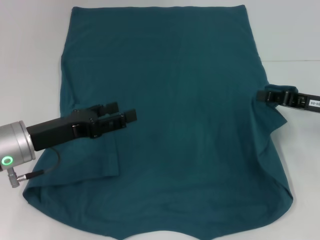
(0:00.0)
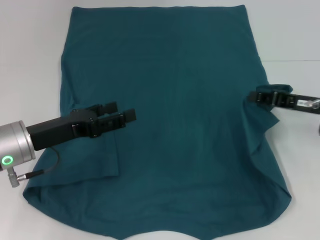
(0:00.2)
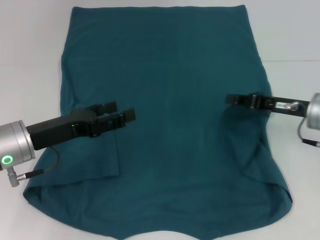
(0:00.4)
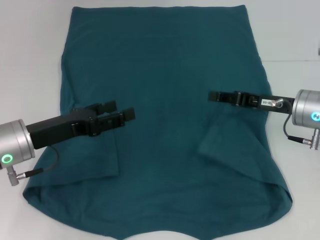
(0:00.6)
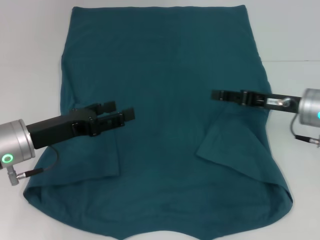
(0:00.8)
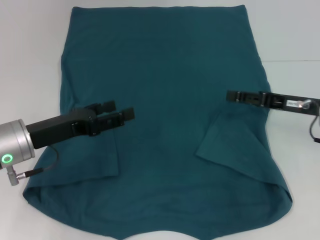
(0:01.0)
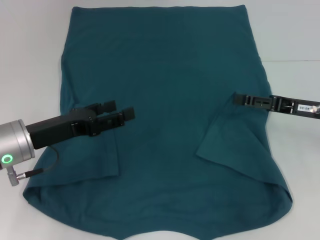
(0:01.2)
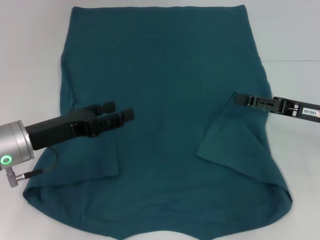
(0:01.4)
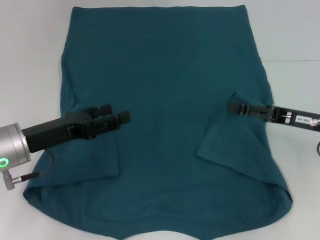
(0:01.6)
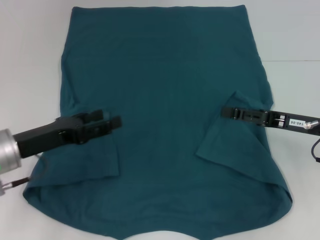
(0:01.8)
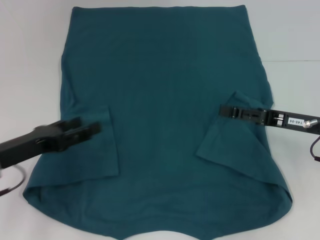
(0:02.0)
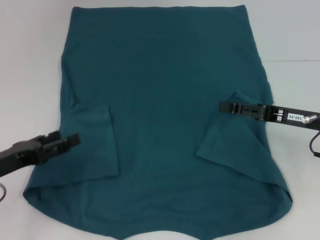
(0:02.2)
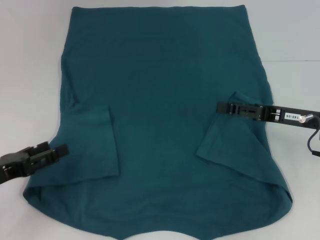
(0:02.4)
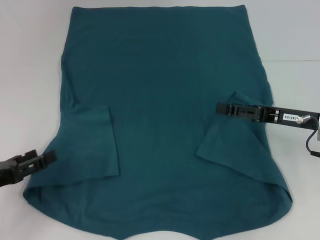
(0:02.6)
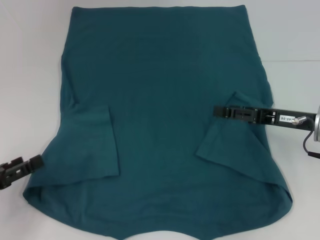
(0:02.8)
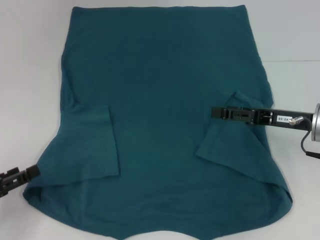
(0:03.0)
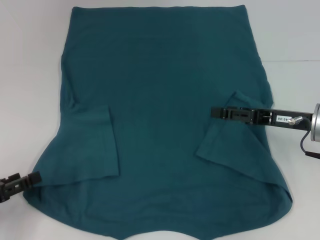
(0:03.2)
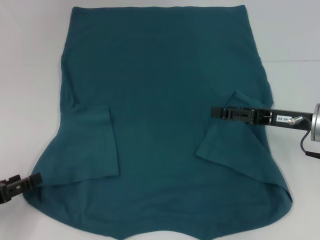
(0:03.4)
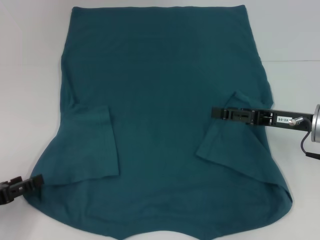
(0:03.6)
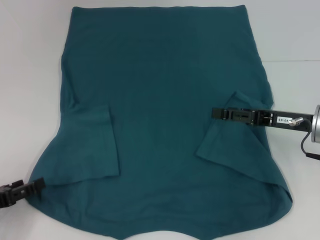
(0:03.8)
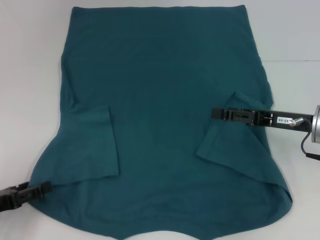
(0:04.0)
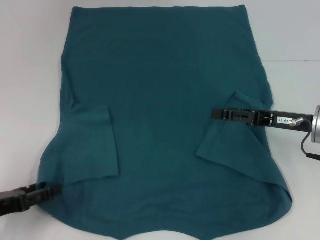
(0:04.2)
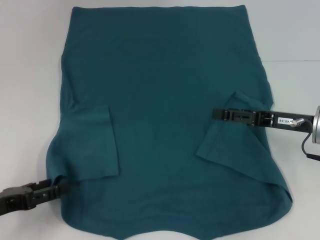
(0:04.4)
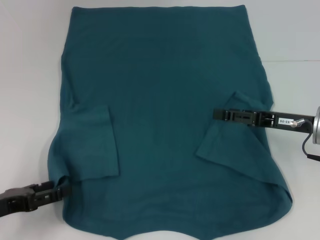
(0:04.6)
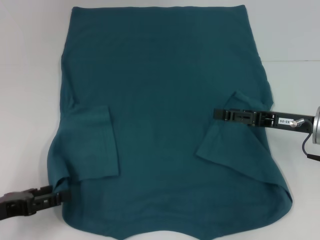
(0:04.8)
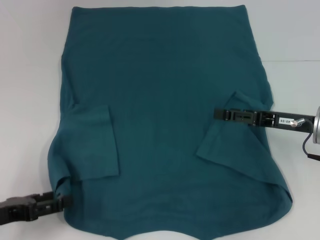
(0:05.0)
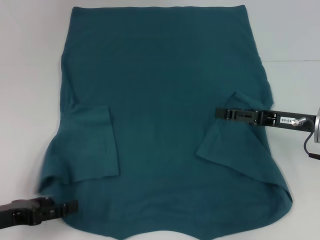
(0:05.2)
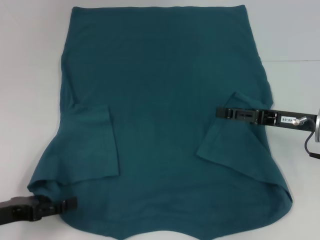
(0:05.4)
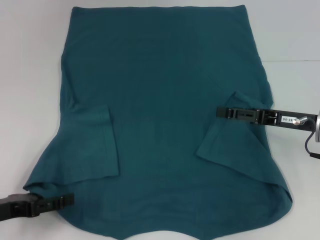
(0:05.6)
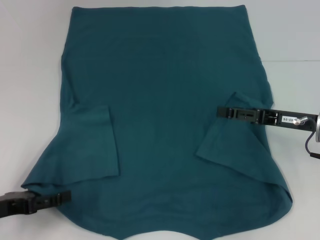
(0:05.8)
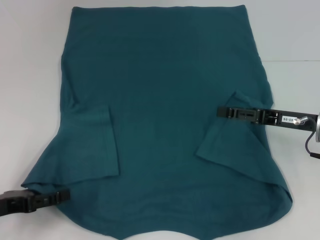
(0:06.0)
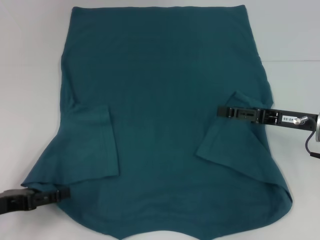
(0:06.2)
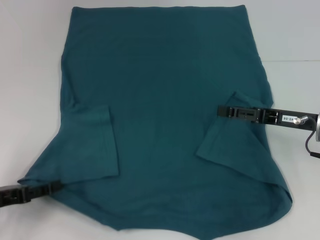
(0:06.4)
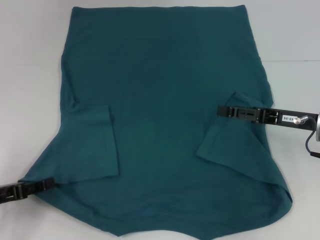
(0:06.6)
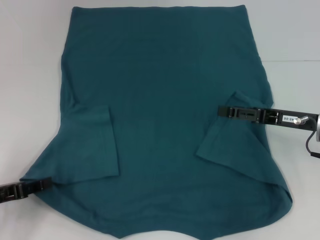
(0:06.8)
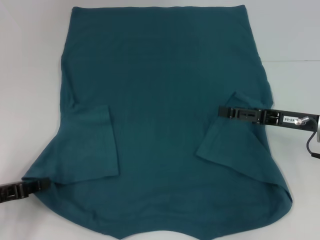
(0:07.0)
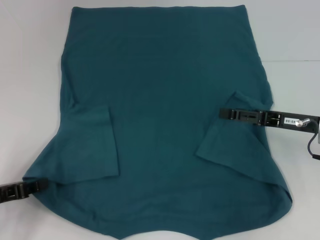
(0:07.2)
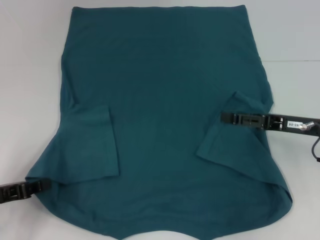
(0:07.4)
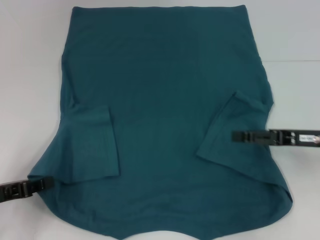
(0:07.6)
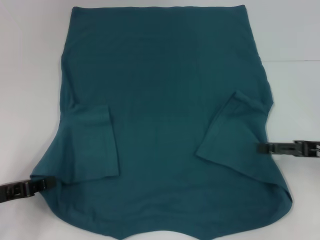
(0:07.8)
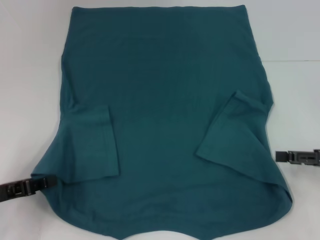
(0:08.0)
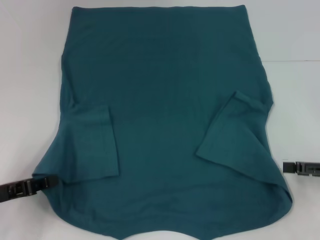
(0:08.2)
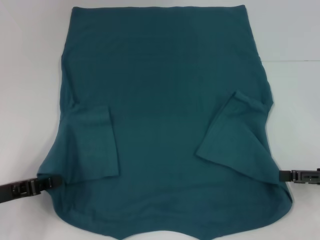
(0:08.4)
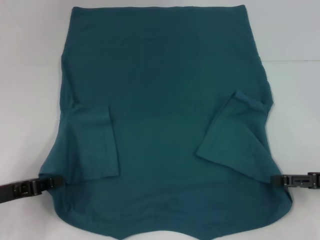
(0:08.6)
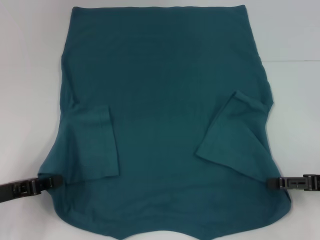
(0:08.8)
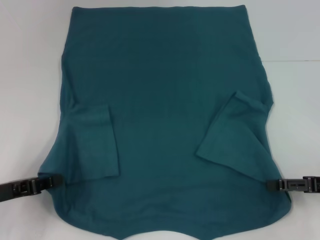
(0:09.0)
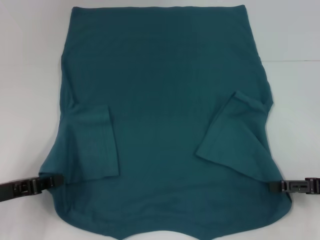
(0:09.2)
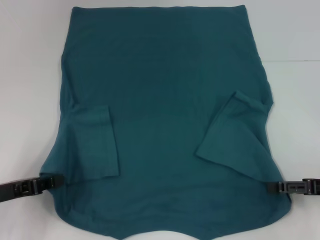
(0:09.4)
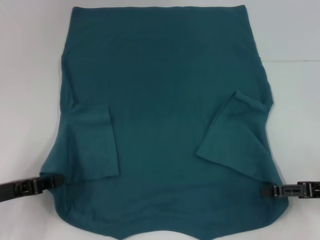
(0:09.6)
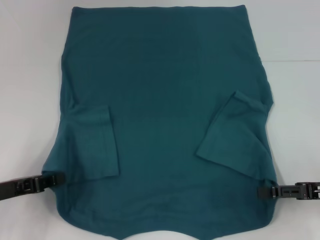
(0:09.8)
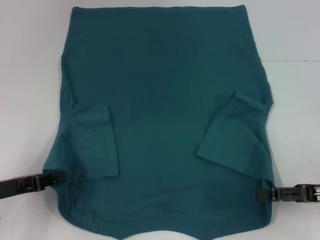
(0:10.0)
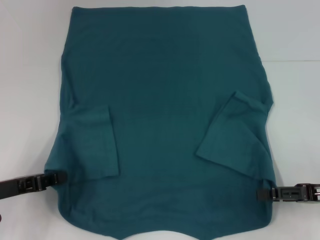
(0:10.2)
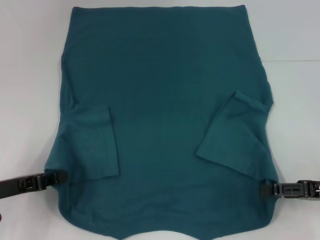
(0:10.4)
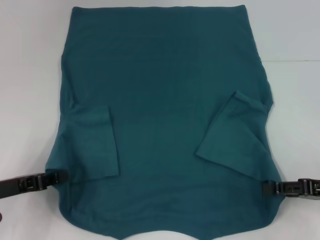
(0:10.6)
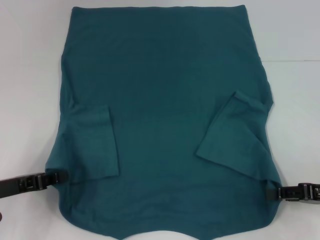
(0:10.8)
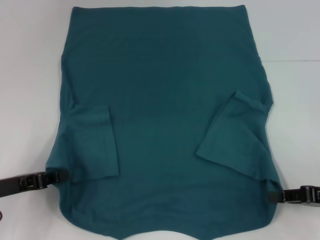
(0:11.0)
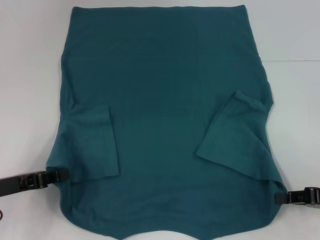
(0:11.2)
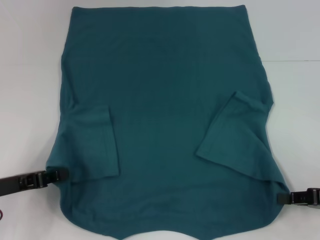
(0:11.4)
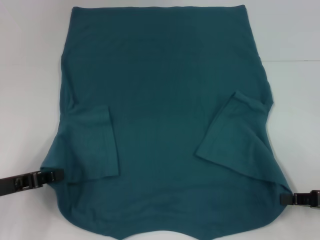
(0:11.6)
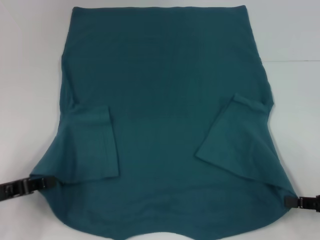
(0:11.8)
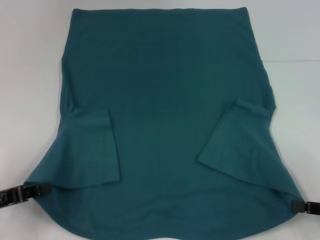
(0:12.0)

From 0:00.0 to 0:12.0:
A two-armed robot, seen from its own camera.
Step, from 0:01.4 to 0:07.4: Grab the bottom left corner with your left hand.
Step, from 0:07.6 to 0:11.0: Grab the bottom right corner with your right hand.
From 0:00.0 to 0:01.6: The right gripper opens.
From 0:01.6 to 0:03.0: The left gripper moves to the left and backward, about 15 cm.
From 0:03.0 to 0:06.0: The grippers stay close to where they were, moving slightly.
From 0:06.0 to 0:07.6: The left gripper closes.
From 0:07.6 to 0:09.0: The right gripper travels backward by approximately 5 cm.
From 0:09.0 to 0:10.4: The grippers make only small movements.
From 0:10.4 to 0:12.0: The right gripper shifts by about 5 cm, and closes its fingers.

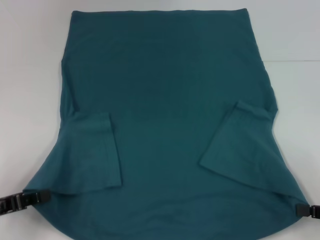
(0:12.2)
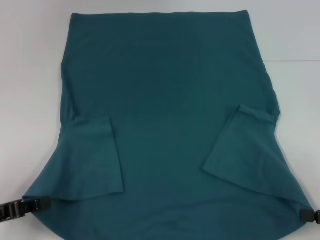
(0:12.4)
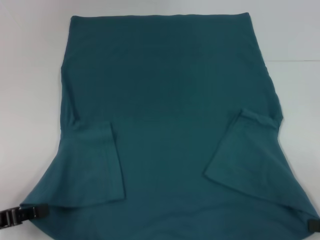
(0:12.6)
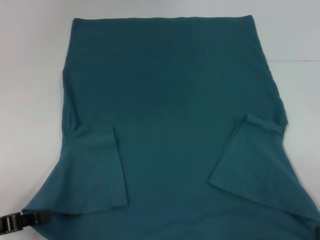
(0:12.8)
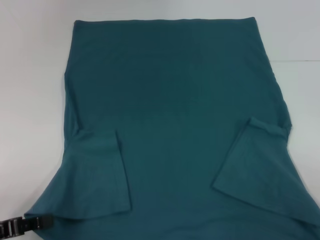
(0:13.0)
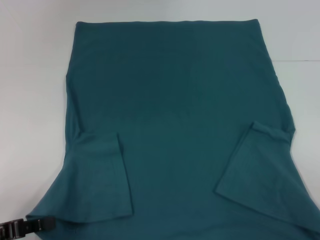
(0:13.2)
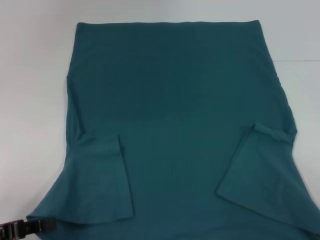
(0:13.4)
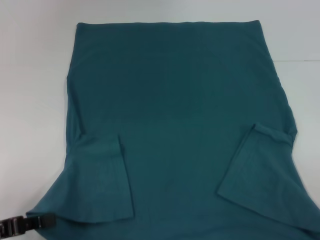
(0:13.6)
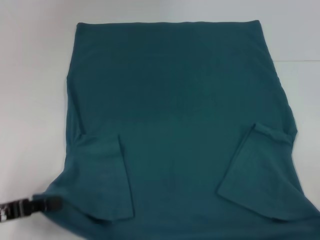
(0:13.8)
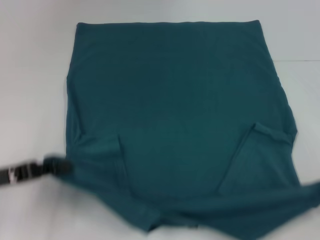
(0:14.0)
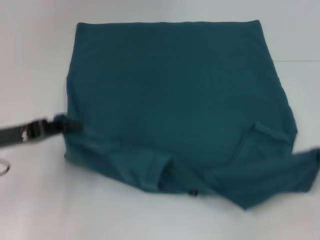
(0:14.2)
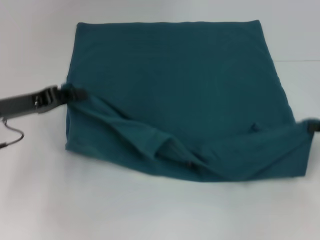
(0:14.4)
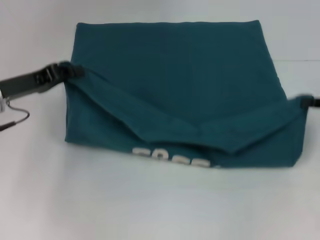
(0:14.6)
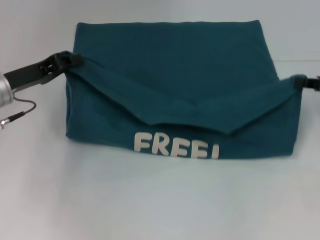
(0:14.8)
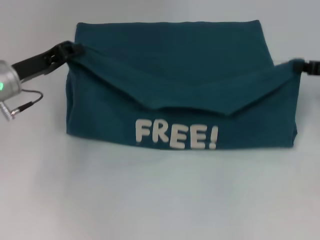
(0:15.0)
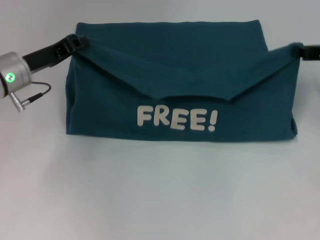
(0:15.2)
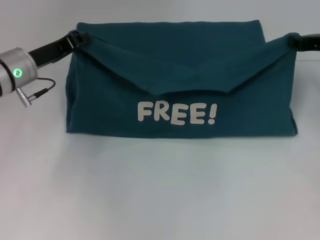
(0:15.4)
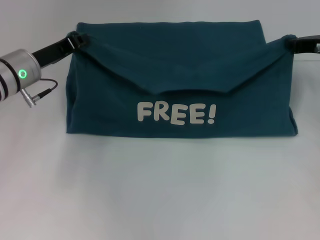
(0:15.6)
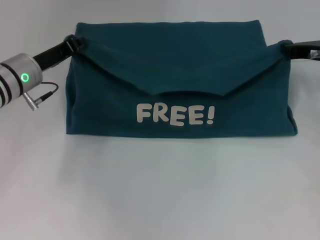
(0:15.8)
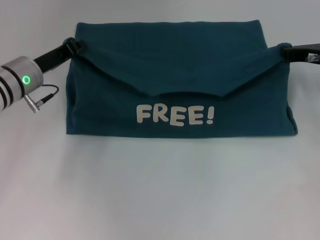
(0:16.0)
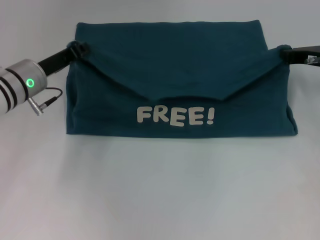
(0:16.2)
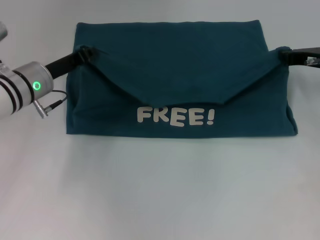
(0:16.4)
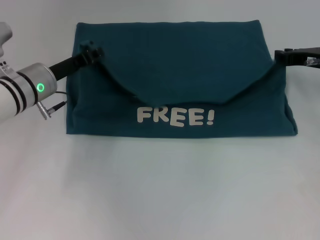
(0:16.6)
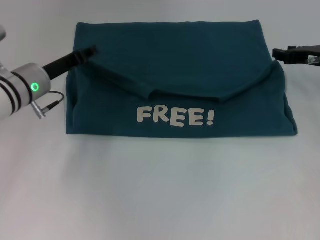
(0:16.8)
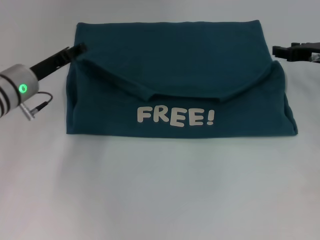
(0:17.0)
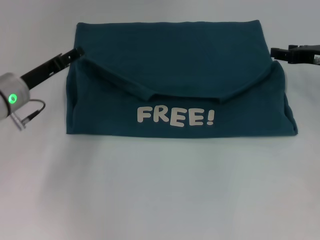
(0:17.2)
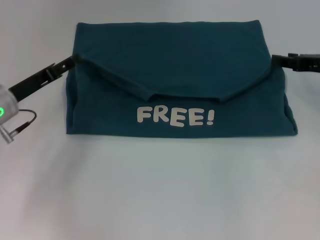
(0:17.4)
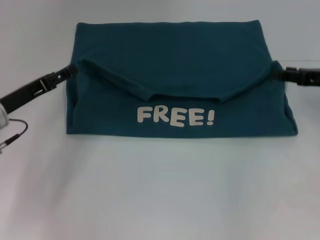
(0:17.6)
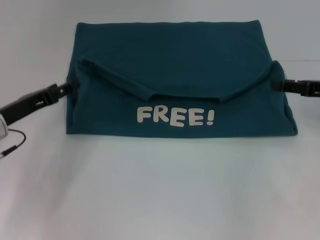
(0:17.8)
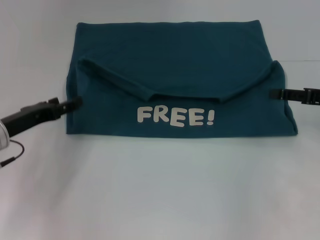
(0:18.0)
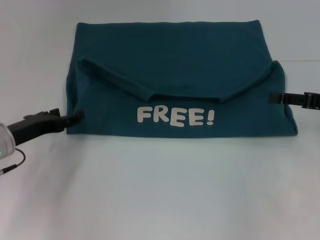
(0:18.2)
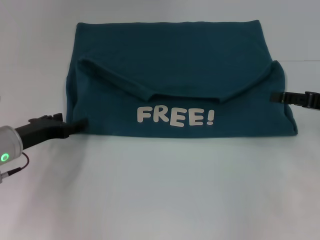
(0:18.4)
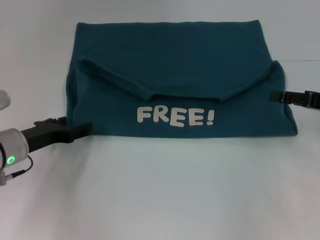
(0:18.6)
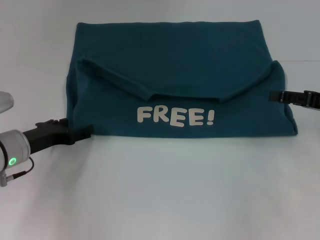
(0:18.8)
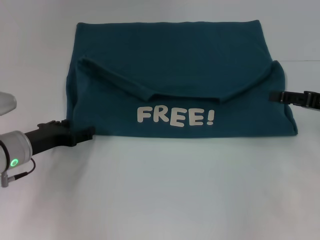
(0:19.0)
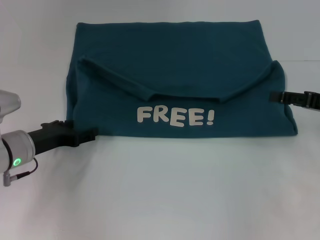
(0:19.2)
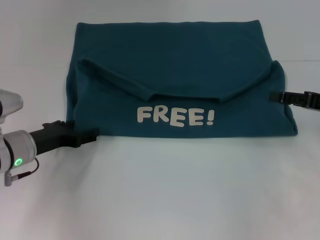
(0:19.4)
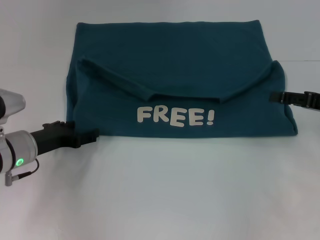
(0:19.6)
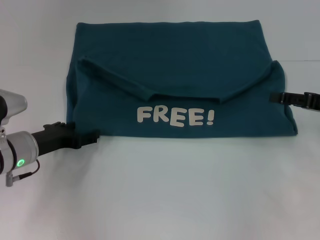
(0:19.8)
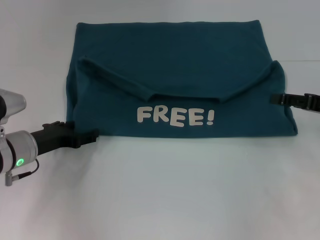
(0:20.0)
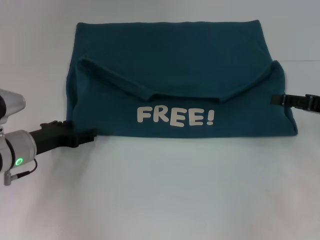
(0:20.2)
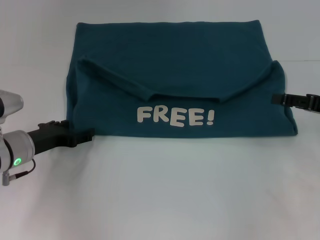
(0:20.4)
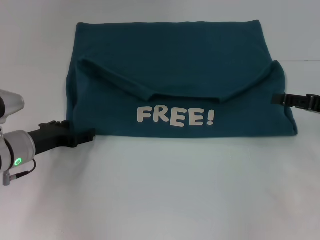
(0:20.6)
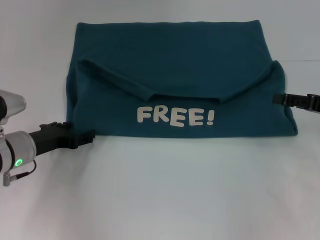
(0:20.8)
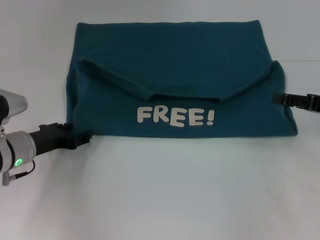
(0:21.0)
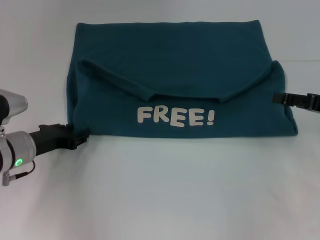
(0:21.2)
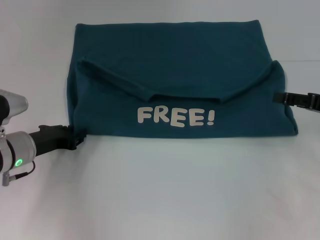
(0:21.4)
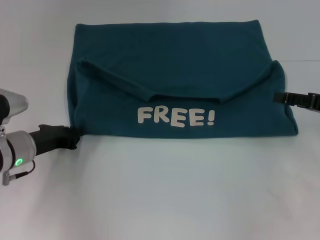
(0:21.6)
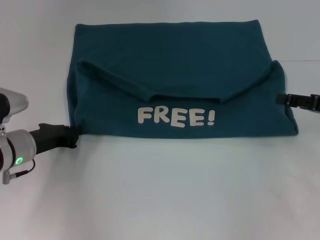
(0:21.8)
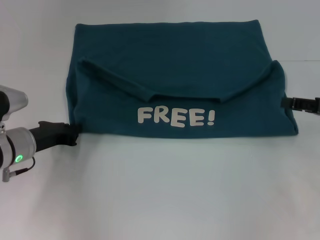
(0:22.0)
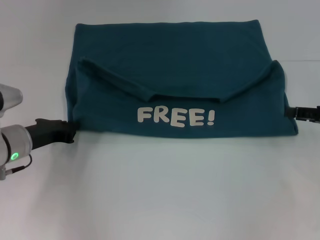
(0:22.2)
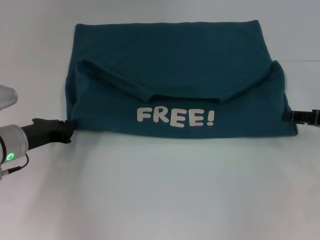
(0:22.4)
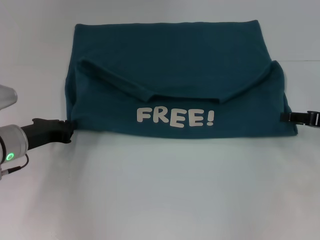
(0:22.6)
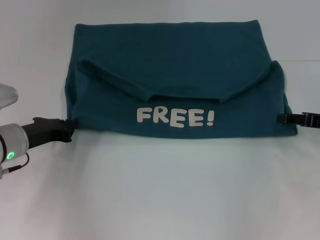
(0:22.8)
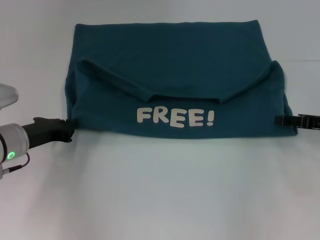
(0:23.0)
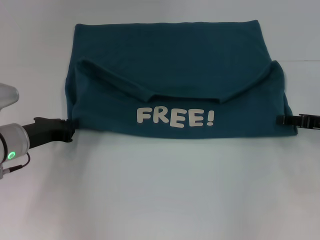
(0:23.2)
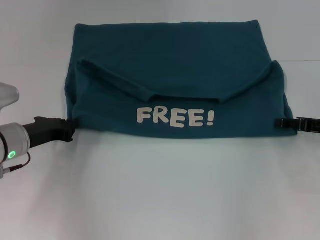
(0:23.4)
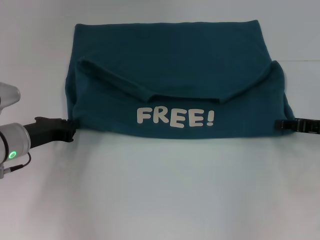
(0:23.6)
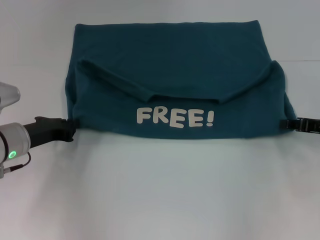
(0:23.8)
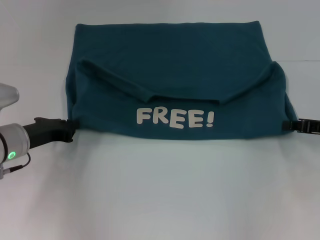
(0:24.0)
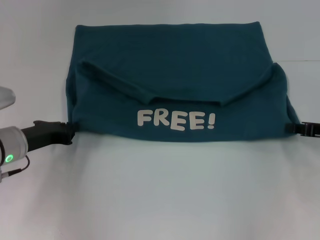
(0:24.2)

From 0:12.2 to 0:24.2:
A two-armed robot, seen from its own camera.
Step, from 0:12.2 to 0:16.8: Fold the clothes to the left.
Step, from 0:12.2 to 0:16.8: Fold the clothes to the right.
From 0:12.2 to 0:13.8: The grippers stay close to where they were, moving slightly.
From 0:13.8 to 0:15.2: Both grippers move forward, about 20 cm.
From 0:15.2 to 0:16.6: There are only small adjustments of the grippers.
From 0:16.6 to 0:18.2: The left gripper travels backward and to the left by some 10 cm, and opens its fingers, while the right gripper is displaced backward by approximately 10 cm, and opens up.
From 0:18.2 to 0:19.8: The grippers move only a little.
From 0:19.8 to 0:21.2: The two grippers keep their place.
From 0:21.2 to 0:22.6: The left gripper closes up.
From 0:22.6 to 0:24.2: The right gripper closes its fingers.
